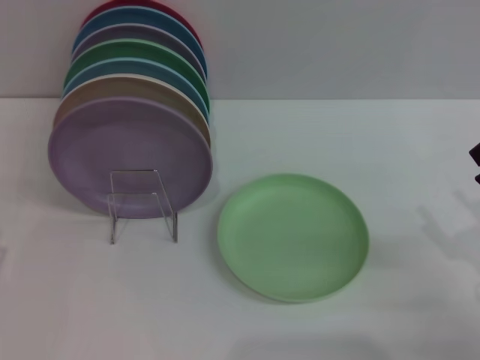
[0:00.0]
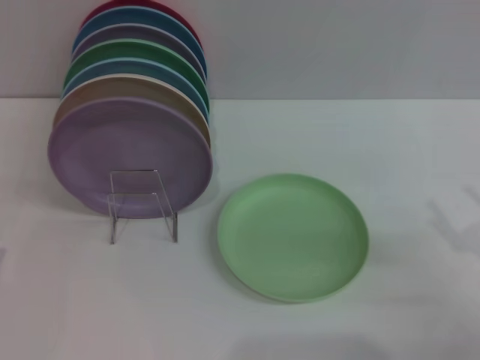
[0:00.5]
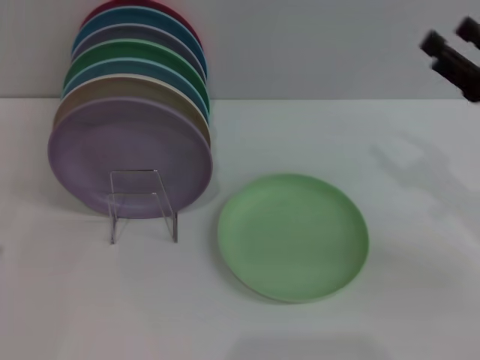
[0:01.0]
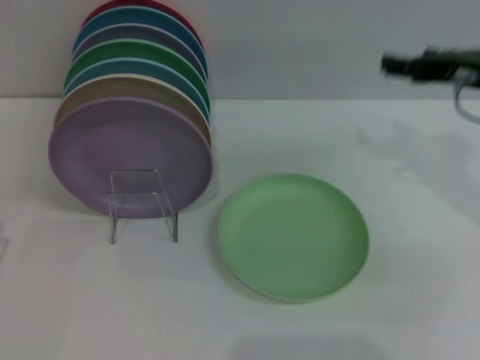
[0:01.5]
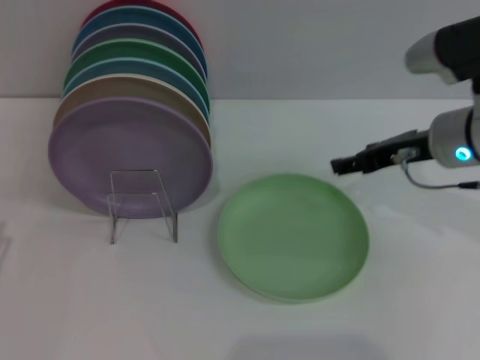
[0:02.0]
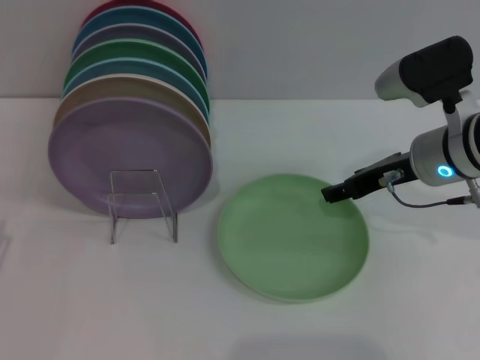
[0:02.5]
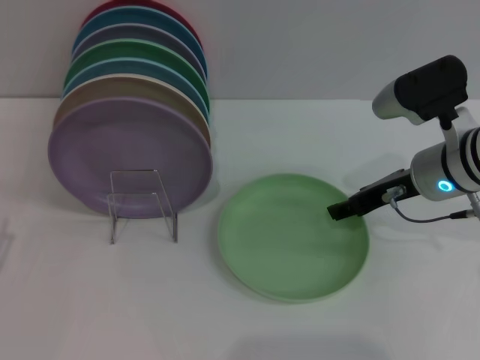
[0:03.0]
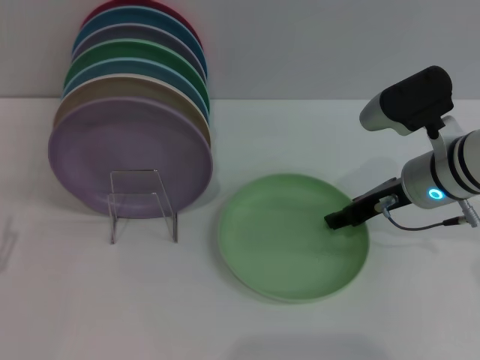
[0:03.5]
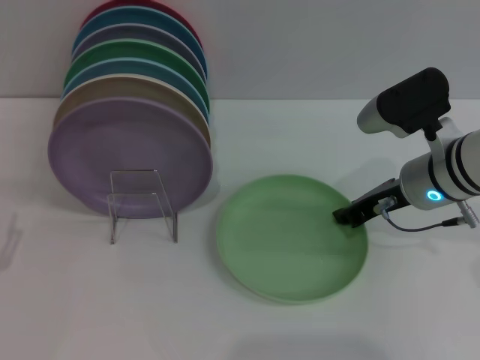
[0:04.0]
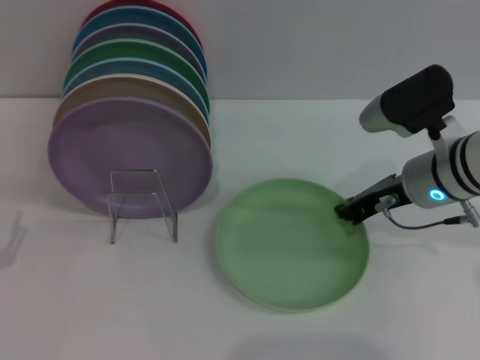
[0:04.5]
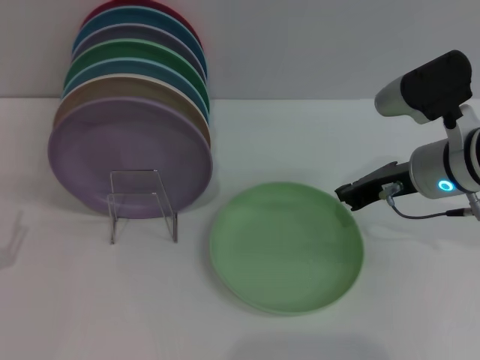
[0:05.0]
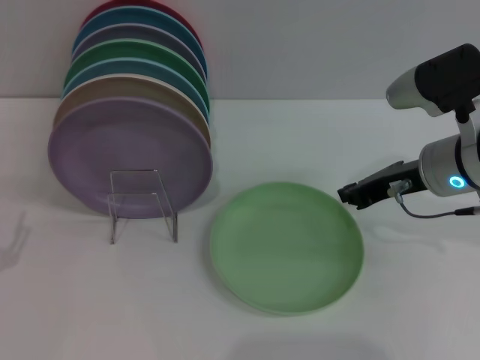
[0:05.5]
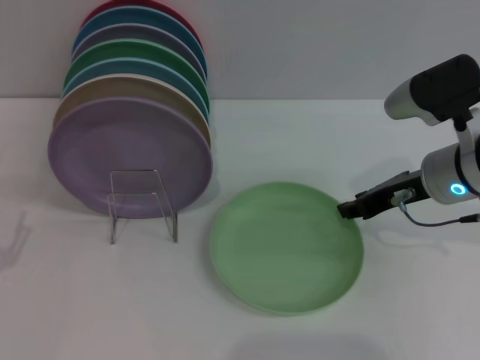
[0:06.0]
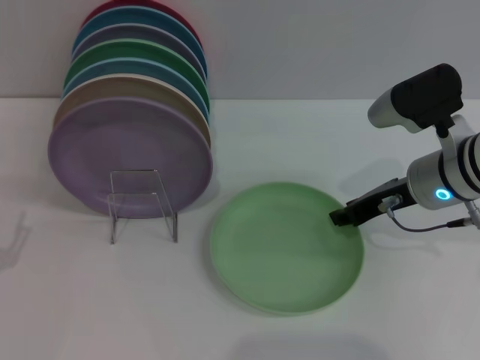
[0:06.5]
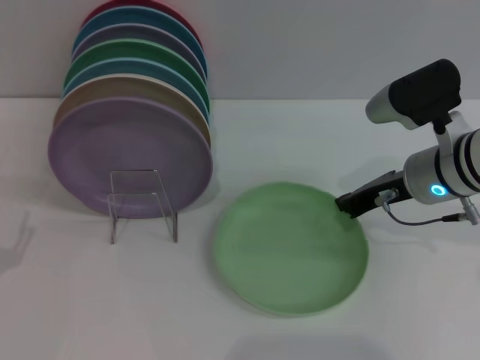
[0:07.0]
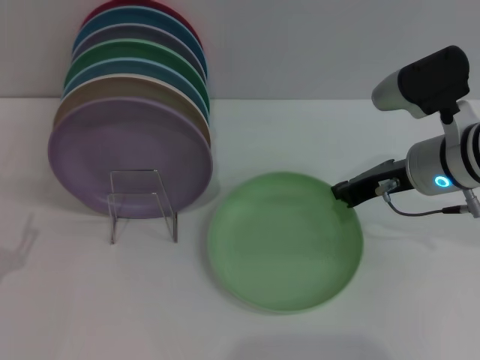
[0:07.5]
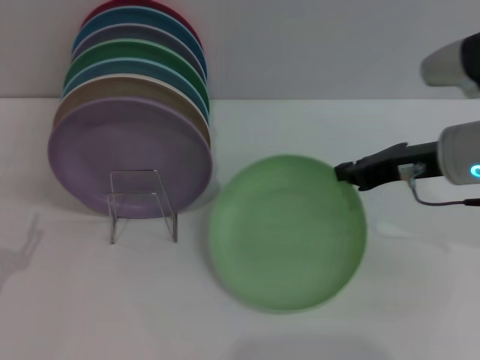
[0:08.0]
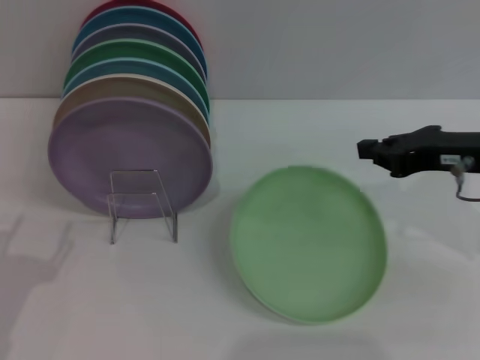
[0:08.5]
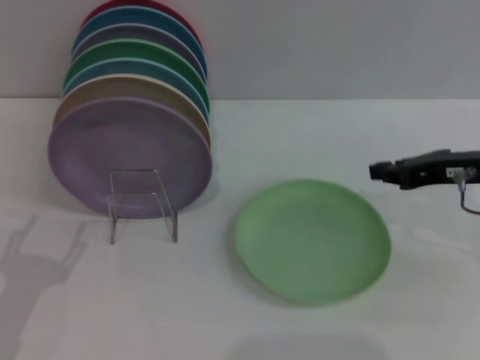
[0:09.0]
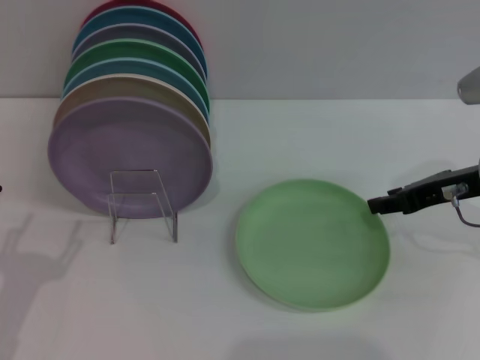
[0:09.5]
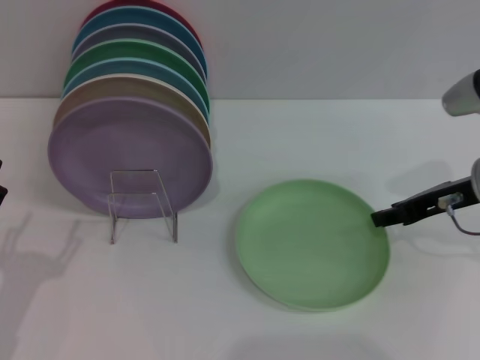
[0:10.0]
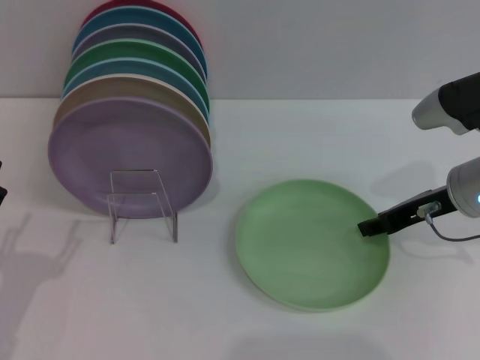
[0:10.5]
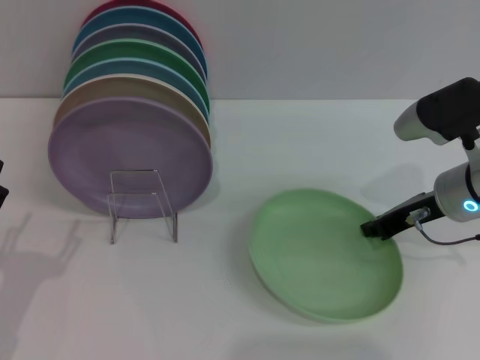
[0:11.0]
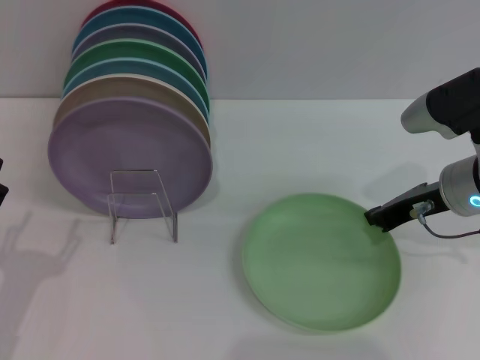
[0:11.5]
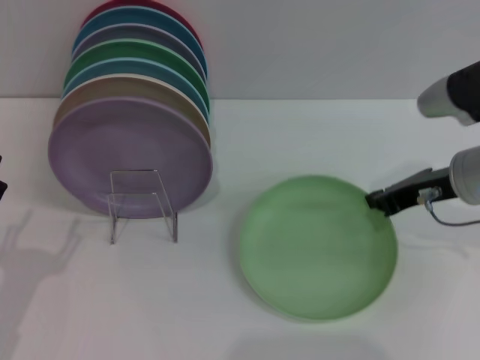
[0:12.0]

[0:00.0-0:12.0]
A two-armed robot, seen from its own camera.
Task of the whole recording: Grip the plate with one hand, pass it to the other, then set it on the shelf.
0:00.0 to 0:02.0: The right gripper travels forward, to the left and upward by about 20 cm.
0:02.0 to 0:04.0: The right gripper closes up.
0:04.0 to 0:08.0: There are only small adjustments of the grippers.
0:08.0 to 0:10.0: The right gripper opens its fingers.
0:10.0 to 0:12.0: The right gripper closes up.

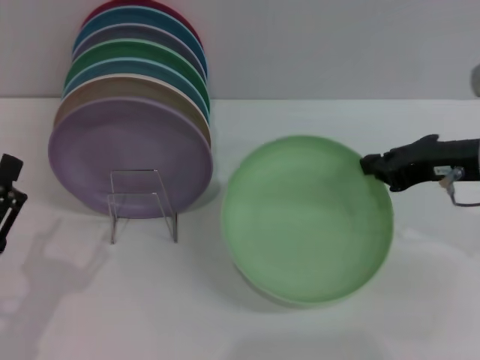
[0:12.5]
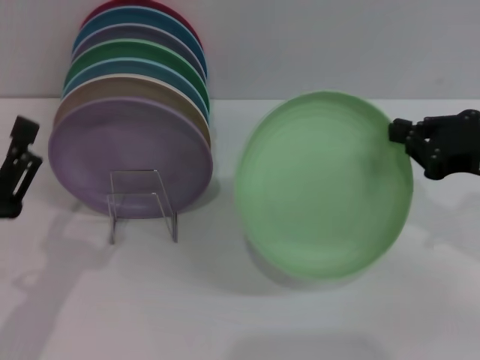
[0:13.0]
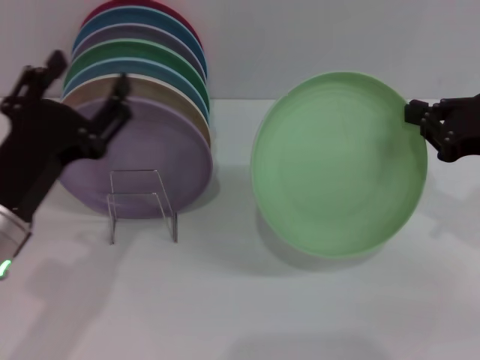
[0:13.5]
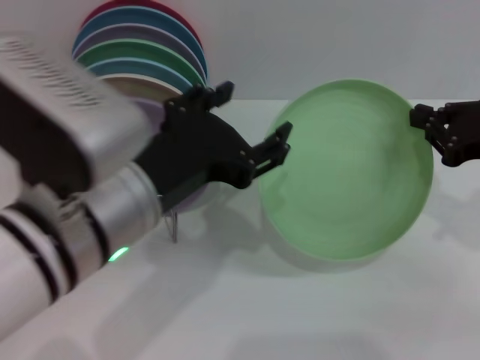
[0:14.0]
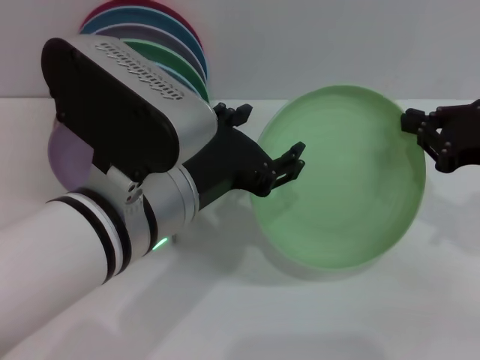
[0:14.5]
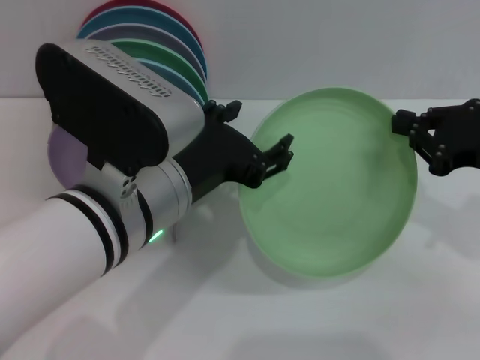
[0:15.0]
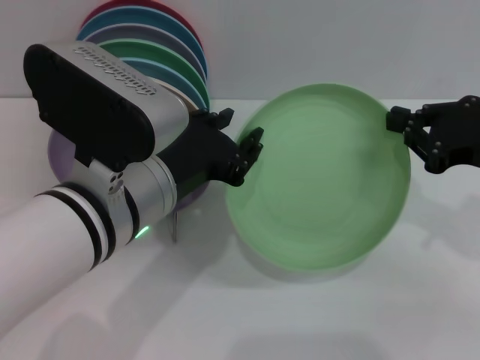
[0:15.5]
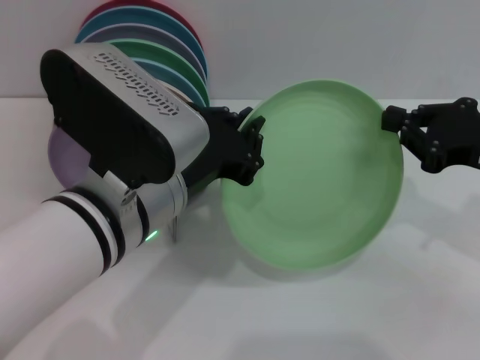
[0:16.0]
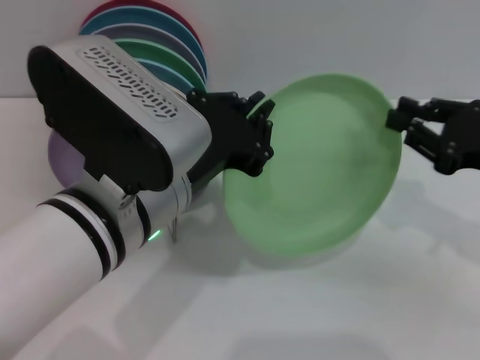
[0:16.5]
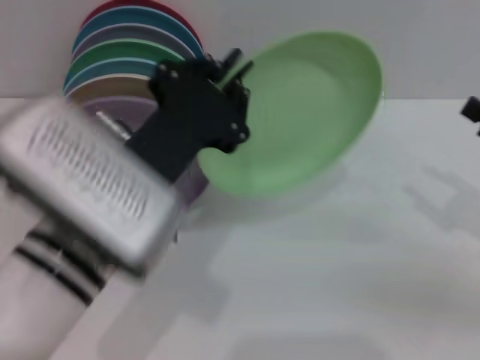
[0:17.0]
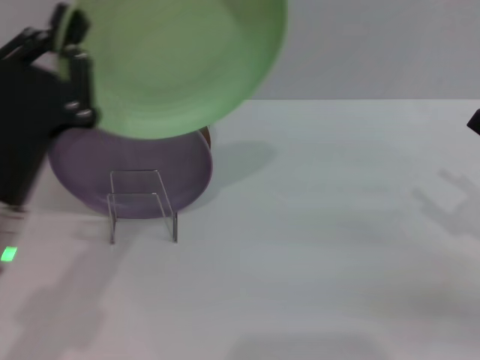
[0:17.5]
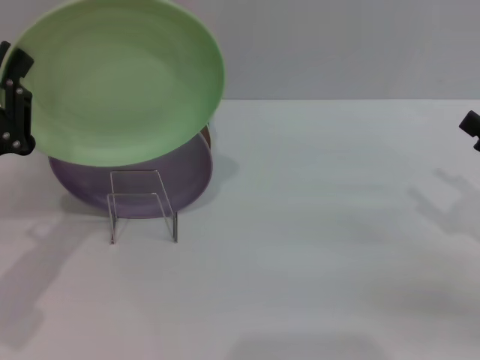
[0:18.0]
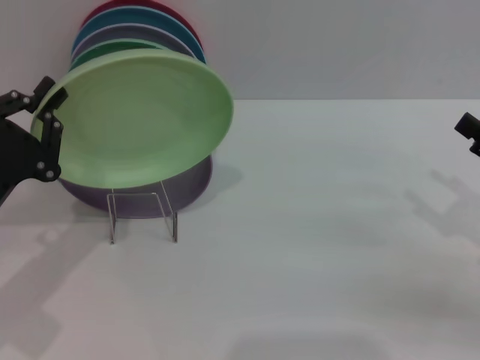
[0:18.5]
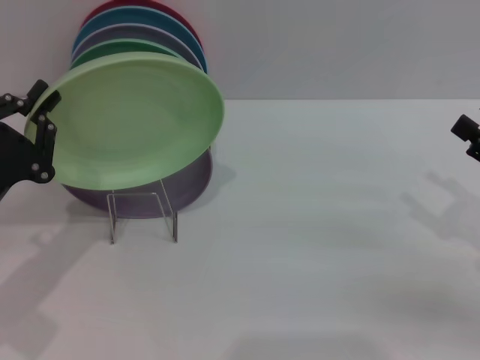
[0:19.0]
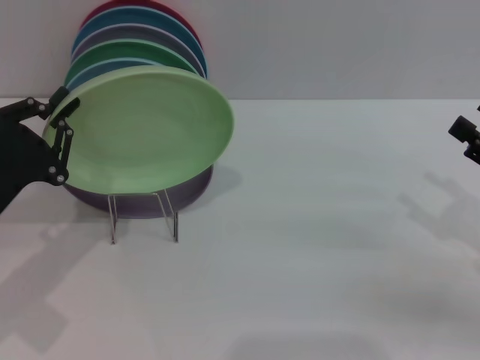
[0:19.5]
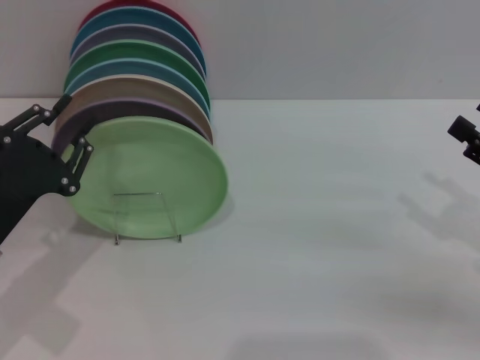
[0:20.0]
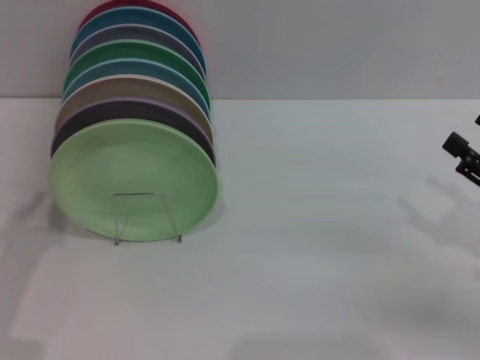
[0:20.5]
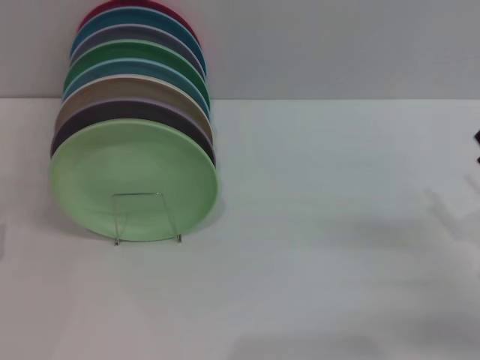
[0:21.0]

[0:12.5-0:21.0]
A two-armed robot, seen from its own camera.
Task of the whole recording: Grip the plate with one hand, pass it to the other, then set it on the shelf.
Step, 0:13.5 to 0:16.5: Pass the plate from the right gripper to the left gripper.
Step, 0:17.0 to 0:20.0: Place the plate on the shelf with the left gripper.
0:12.5 to 0:14.5: The right gripper moves some 5 cm. Meanwhile the left gripper heads to the right and upward, covering some 25 cm.
0:14.5 to 0:16.5: The left gripper closes up.
0:16.5 to 0:19.0: The left gripper goes roughly 20 cm to the left and downward; the right gripper changes place by some 5 cm, and opens.
0:19.0 to 0:21.0: The left gripper is displaced downward and backward by some 10 cm; the right gripper goes roughly 5 cm downward.
